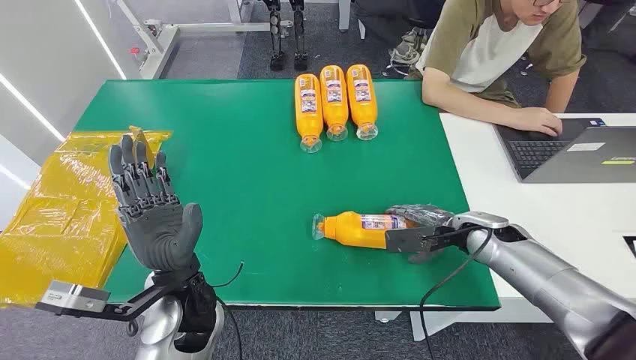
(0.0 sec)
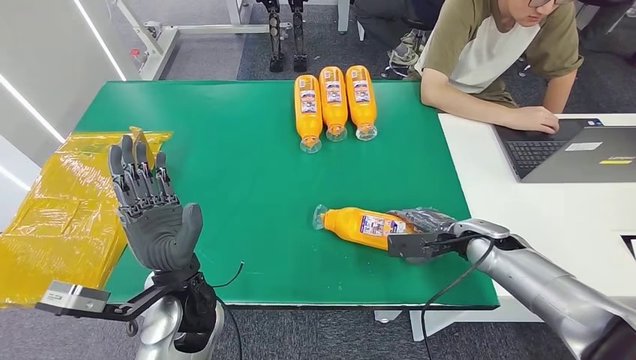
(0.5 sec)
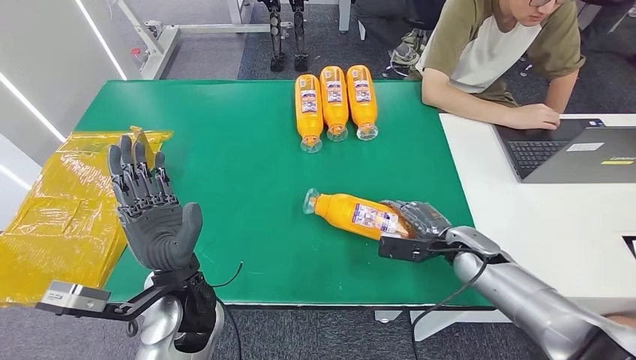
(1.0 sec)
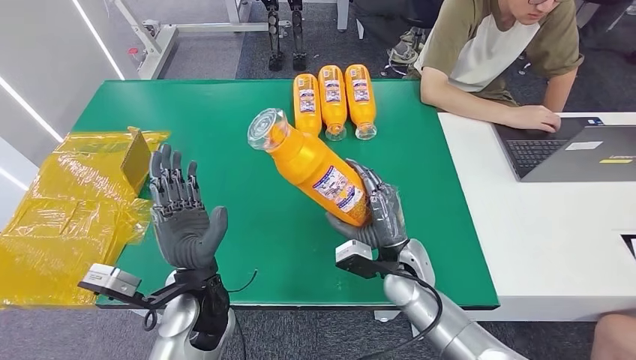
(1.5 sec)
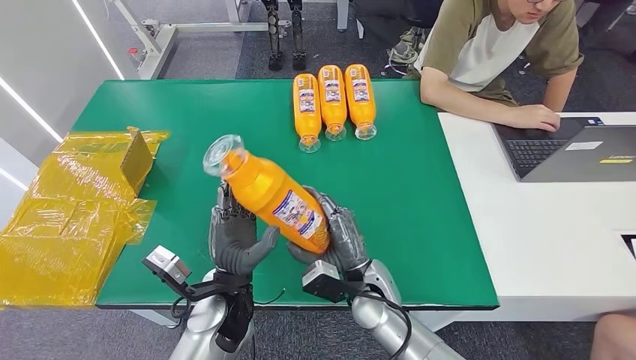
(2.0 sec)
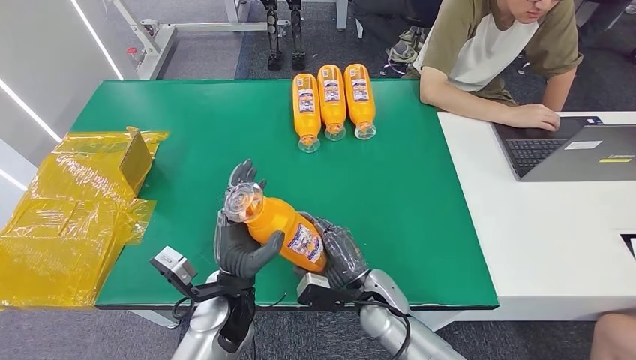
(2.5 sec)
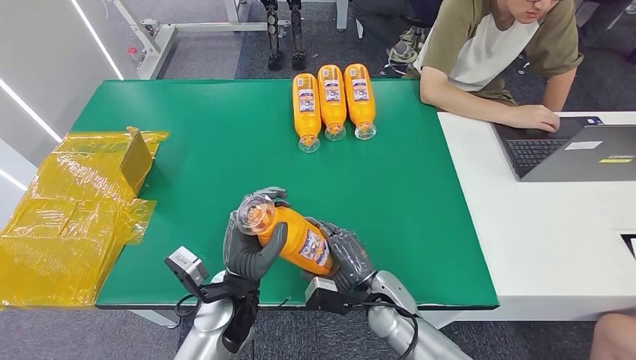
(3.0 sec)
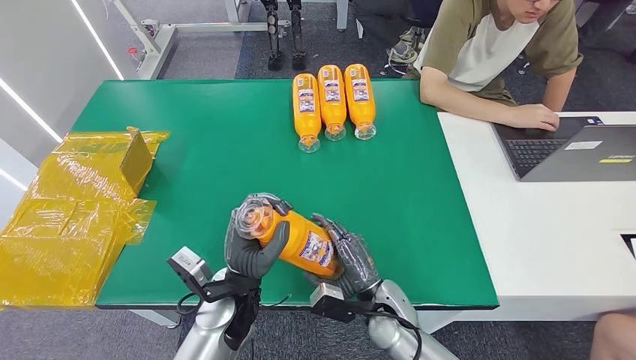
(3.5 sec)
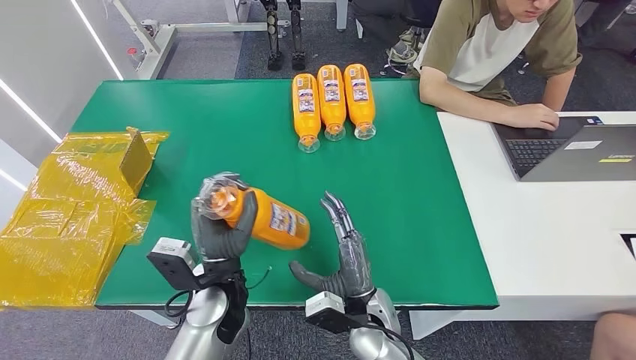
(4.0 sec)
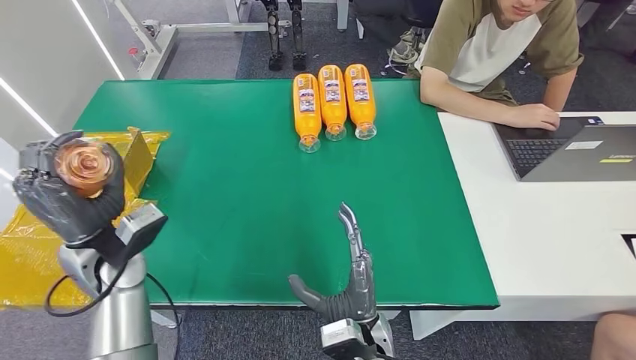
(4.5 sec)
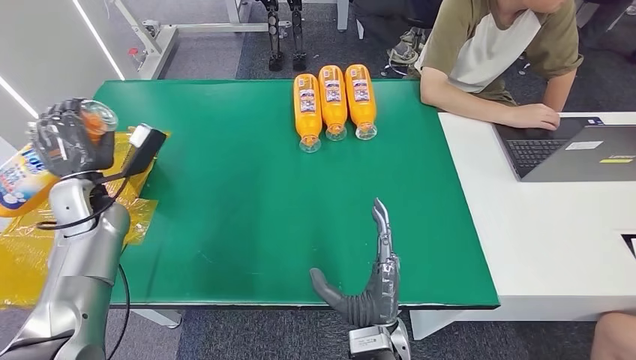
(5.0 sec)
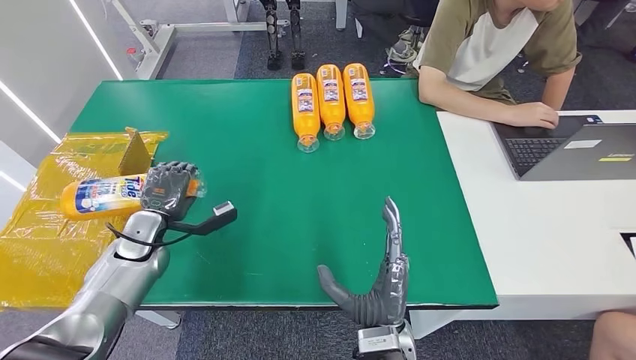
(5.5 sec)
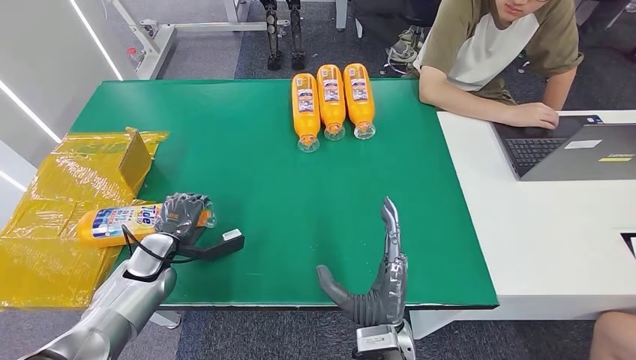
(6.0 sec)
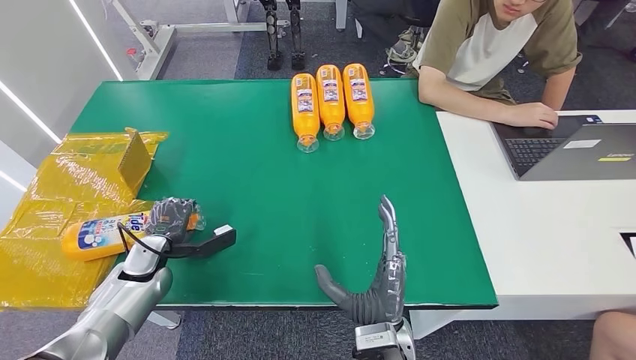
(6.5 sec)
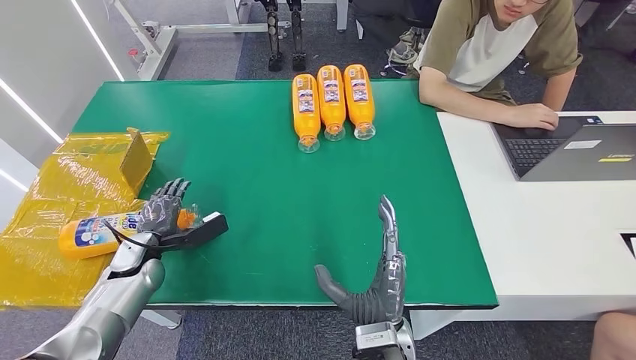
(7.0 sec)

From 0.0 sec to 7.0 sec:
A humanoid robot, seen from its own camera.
Step, from 0.0 sec to 2.0 sec: Pick up the bottle from the table.
Step, from 2.5 sec to 7.0 sec: Turn the bottle to the front side.
From 2.0 sec to 3.5 sec: The right hand changes place by approximately 5 cm.
From 3.5 sec to 5.0 sec: The left hand heads to the left and forward, covering some 30 cm; the right hand travels backward, upward and to the left by about 10 cm.
From 5.0 sec to 7.0 sec: The left hand goes approximately 15 cm downward and backward.

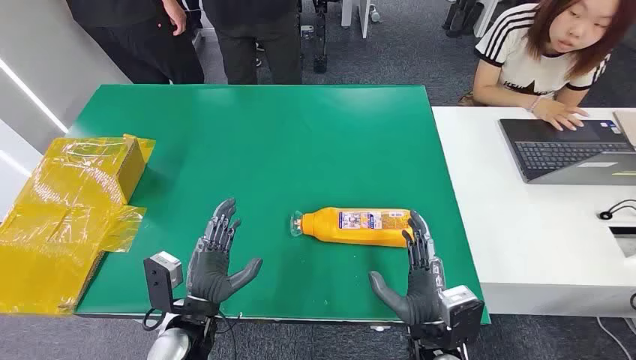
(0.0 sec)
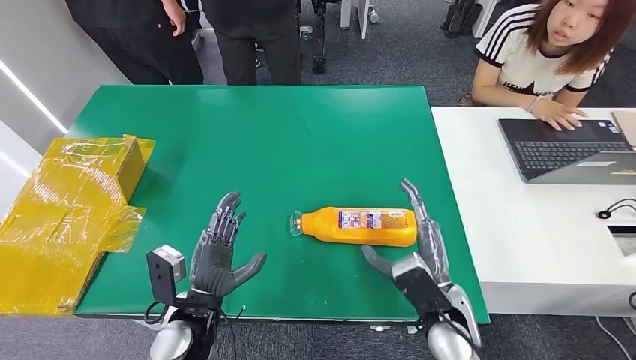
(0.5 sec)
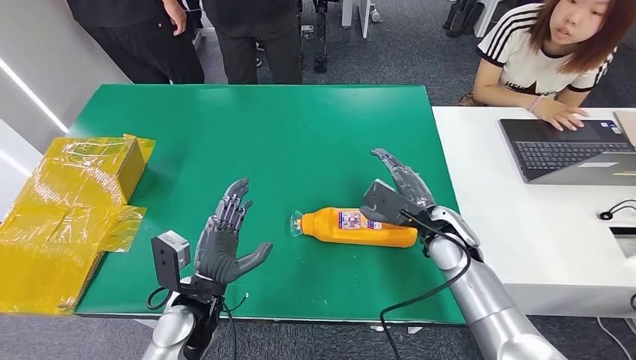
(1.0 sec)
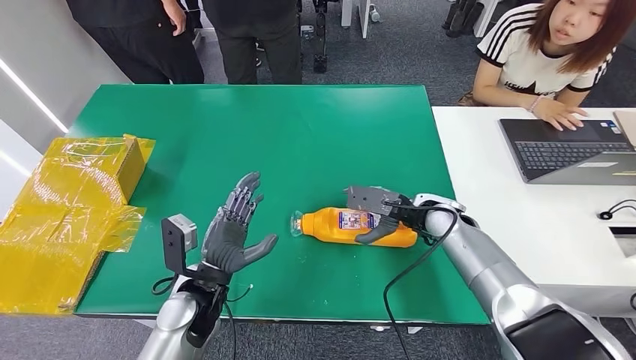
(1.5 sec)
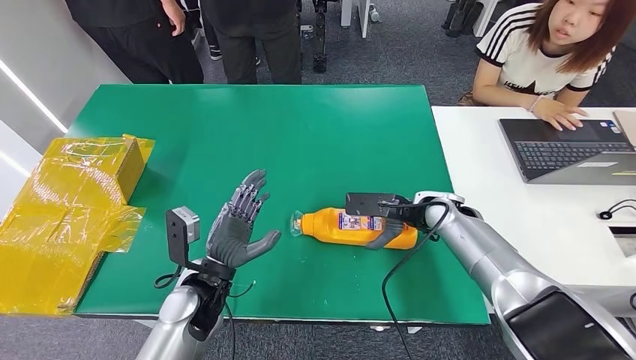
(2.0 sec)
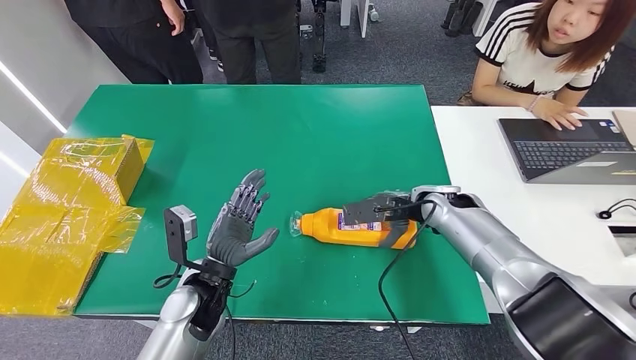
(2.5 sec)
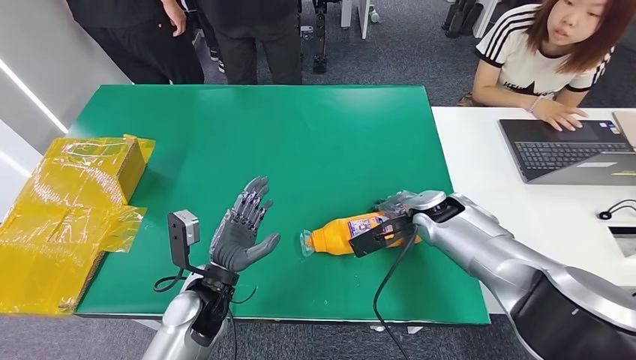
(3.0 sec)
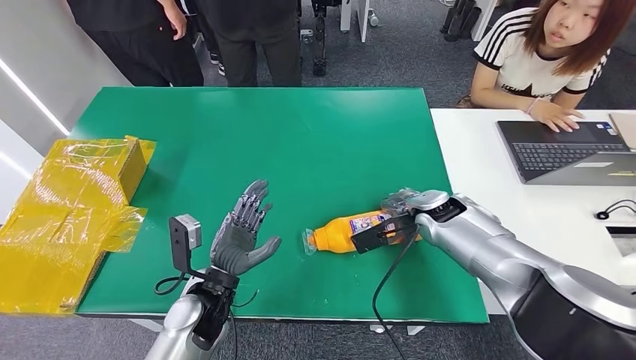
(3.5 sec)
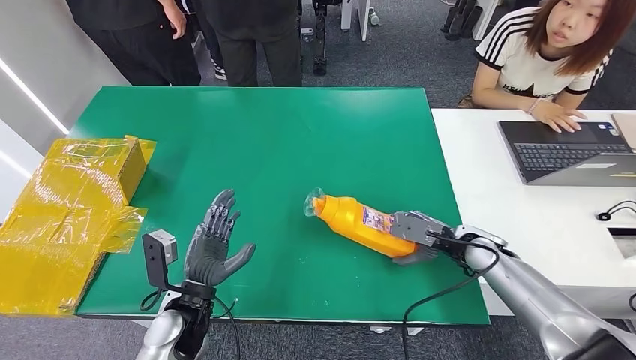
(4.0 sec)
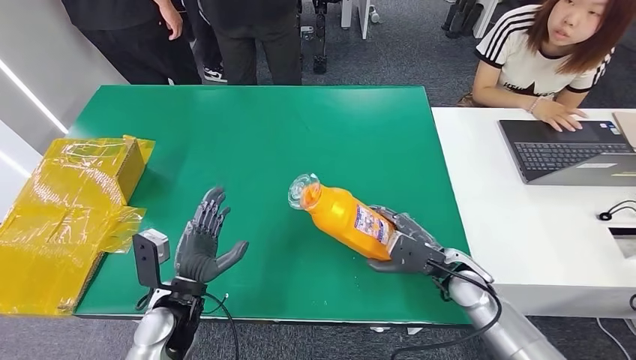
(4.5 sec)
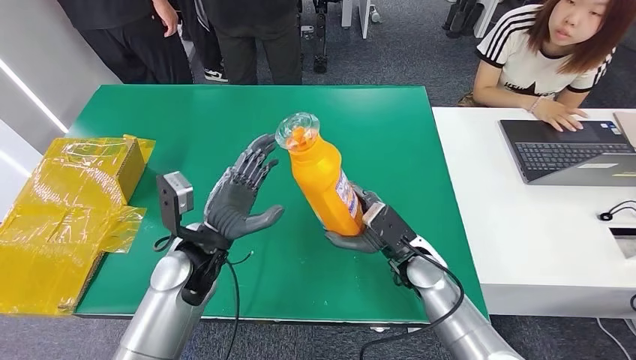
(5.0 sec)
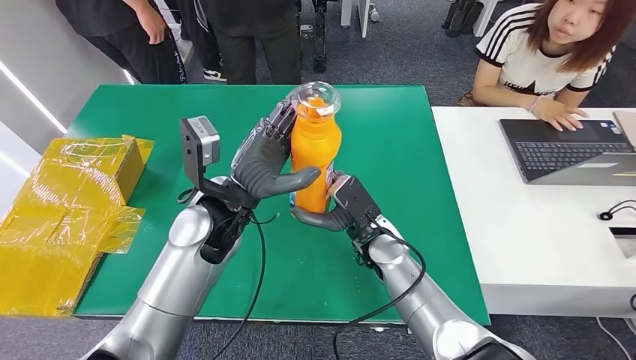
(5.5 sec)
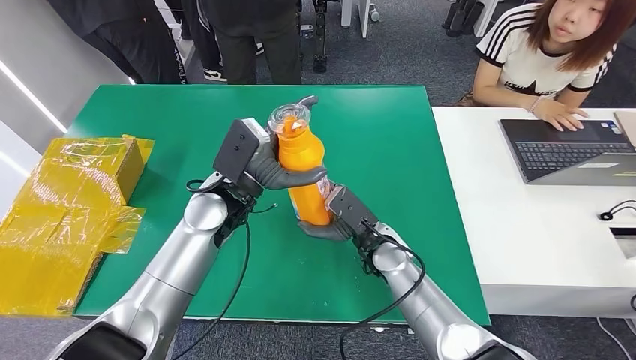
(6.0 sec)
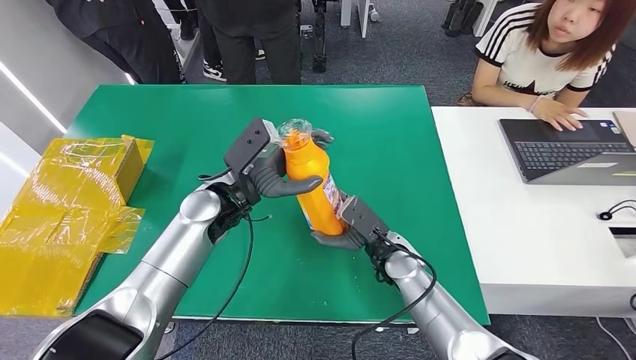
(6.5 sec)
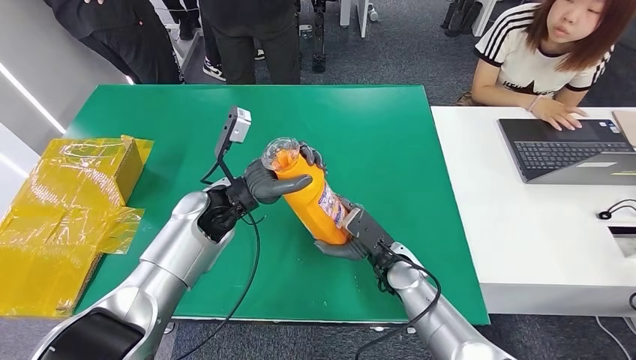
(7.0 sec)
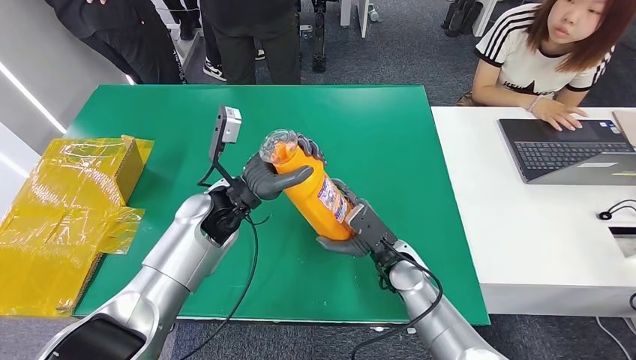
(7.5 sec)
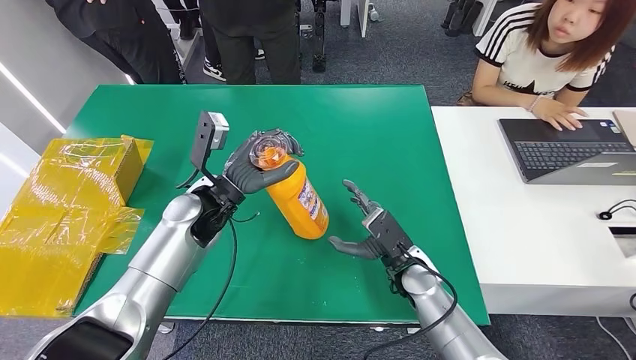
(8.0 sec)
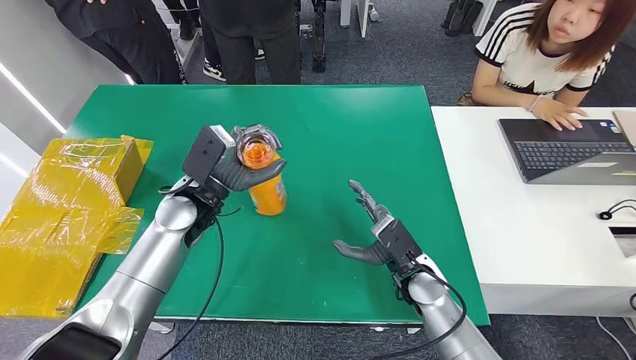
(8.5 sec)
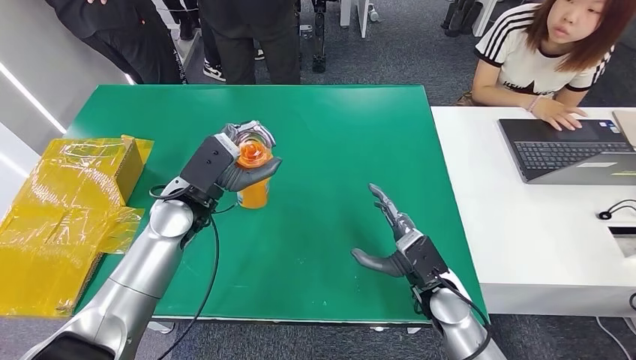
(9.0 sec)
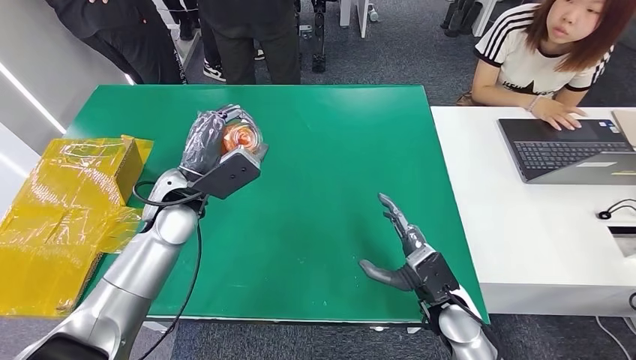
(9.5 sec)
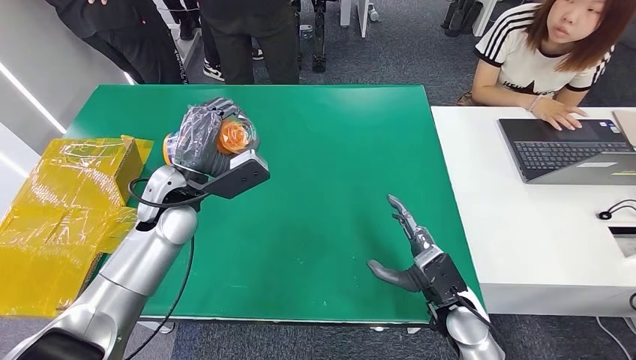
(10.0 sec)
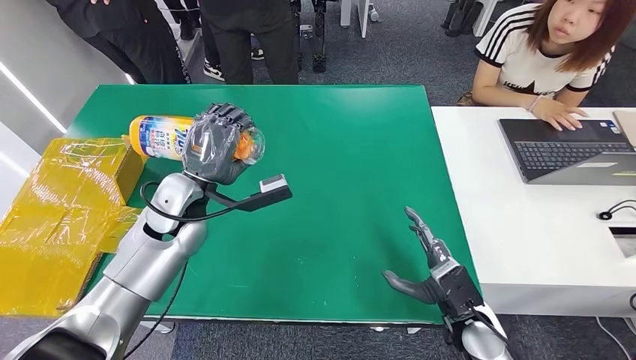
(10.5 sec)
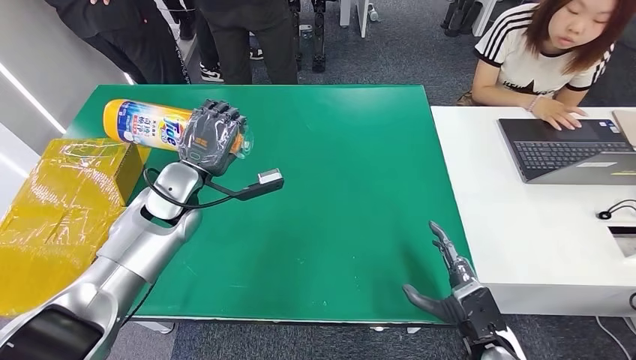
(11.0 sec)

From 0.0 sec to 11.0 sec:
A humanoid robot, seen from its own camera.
Step, from 0.0 sec to 4.5 sec: Pick up the bottle from the table.
From 5.5 sec to 7.5 sec: The left hand changes place by approximately 5 cm; the right hand moves about 5 cm.
From 7.5 sec to 9.0 sec: The left hand travels to the left by some 5 cm; the right hand goes approximately 5 cm to the right.
From 9.0 sec to 11.0 sec: The right hand goes roughly 10 cm backward and to the right.

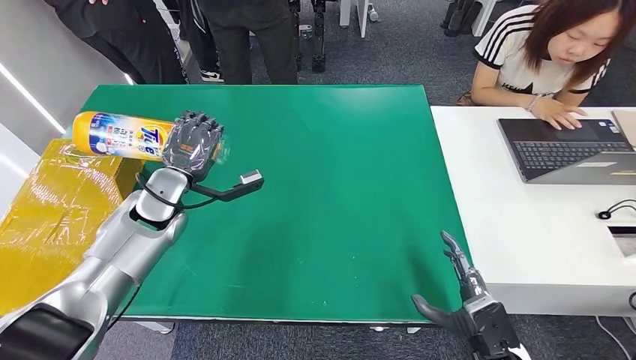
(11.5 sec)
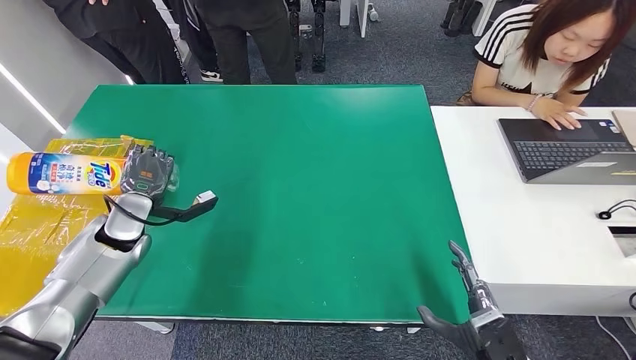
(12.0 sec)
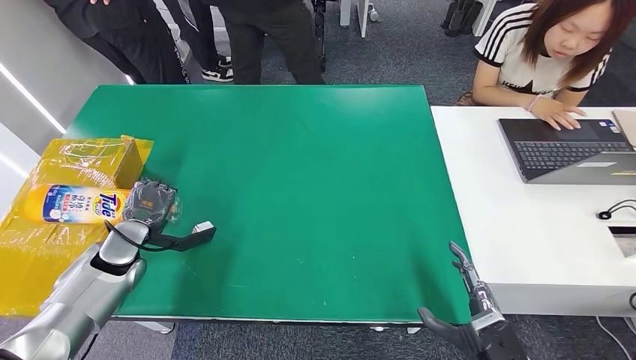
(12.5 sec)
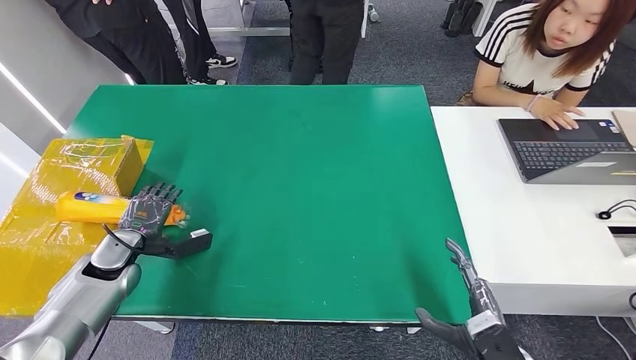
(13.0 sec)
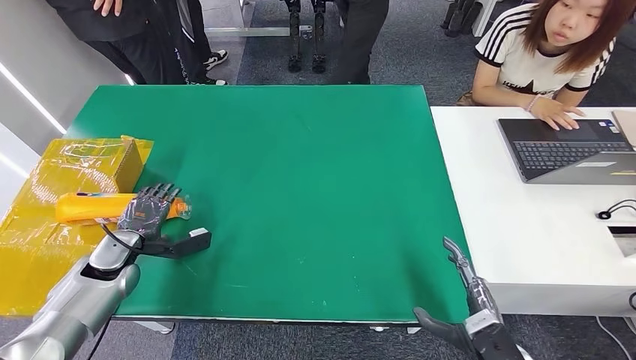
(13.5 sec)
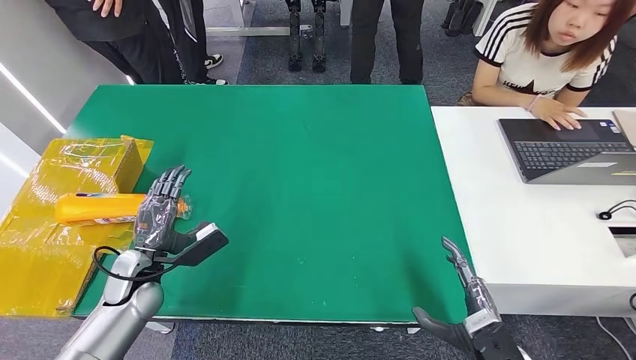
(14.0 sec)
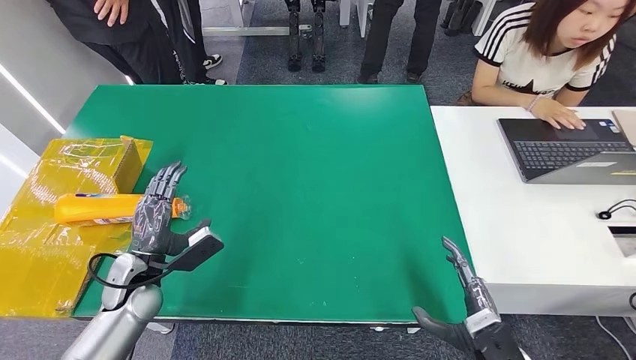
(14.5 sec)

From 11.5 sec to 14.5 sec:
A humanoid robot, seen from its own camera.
Step, from 11.5 sec to 14.5 sec: Turn the bottle to the front side.
From 13.0 sec to 14.5 sec: The left hand heads to the right and backward, covering approximately 10 cm.
